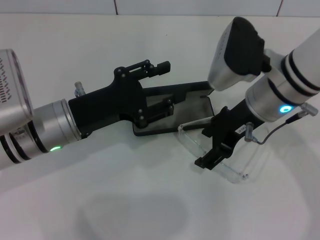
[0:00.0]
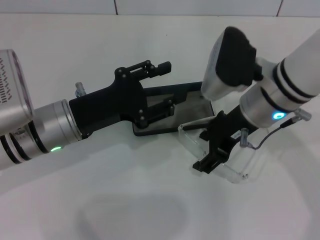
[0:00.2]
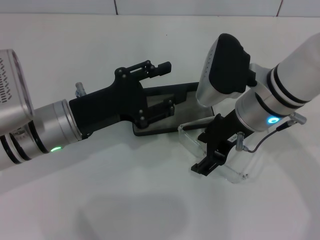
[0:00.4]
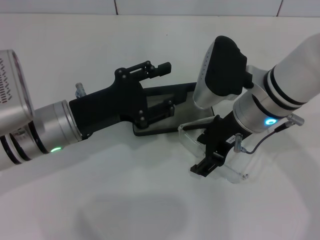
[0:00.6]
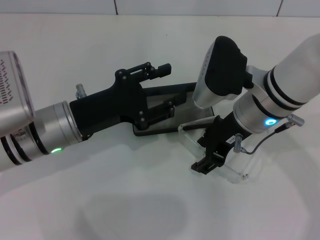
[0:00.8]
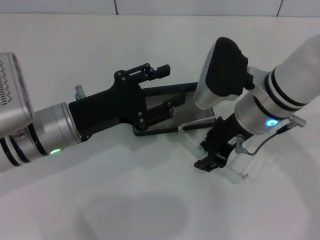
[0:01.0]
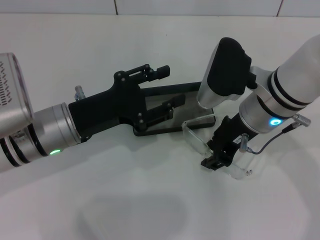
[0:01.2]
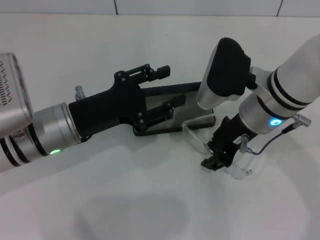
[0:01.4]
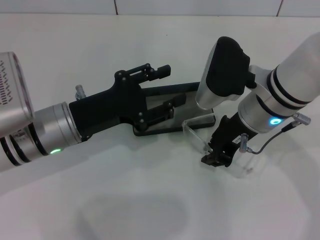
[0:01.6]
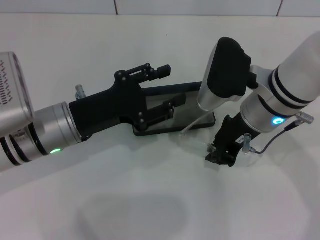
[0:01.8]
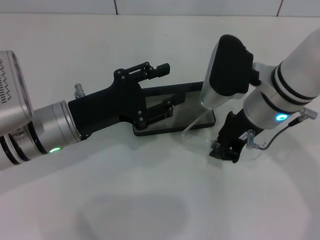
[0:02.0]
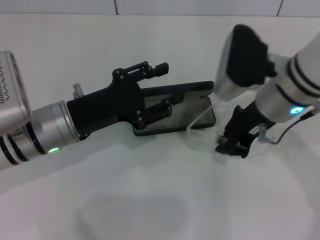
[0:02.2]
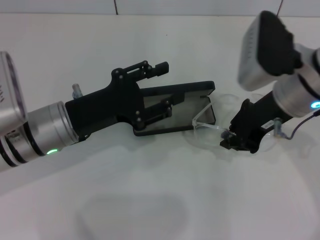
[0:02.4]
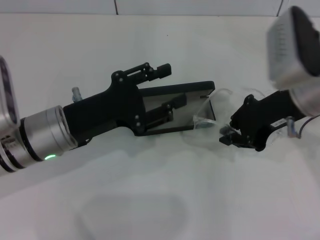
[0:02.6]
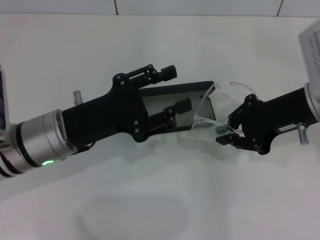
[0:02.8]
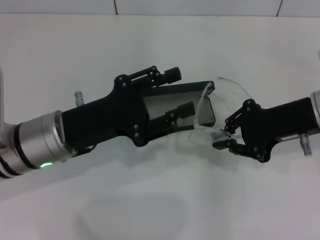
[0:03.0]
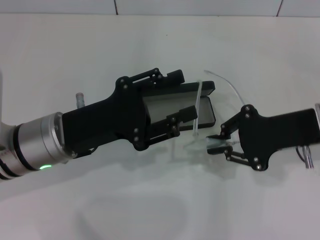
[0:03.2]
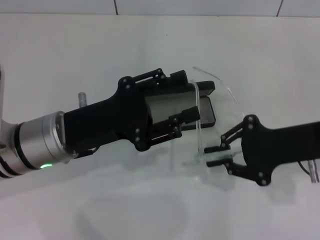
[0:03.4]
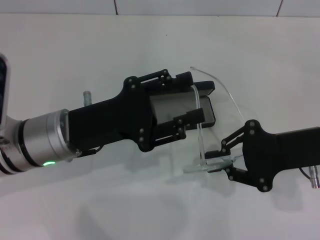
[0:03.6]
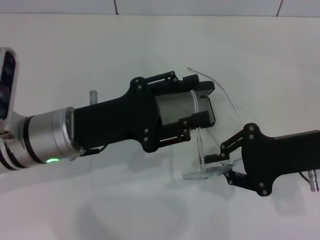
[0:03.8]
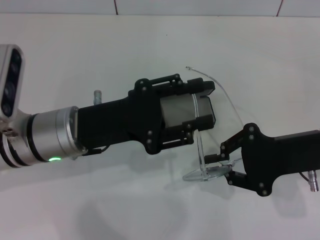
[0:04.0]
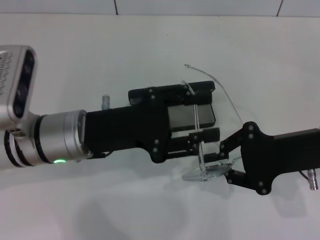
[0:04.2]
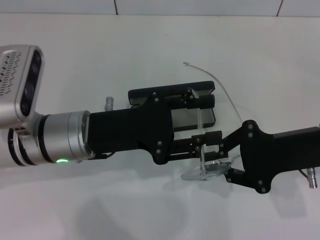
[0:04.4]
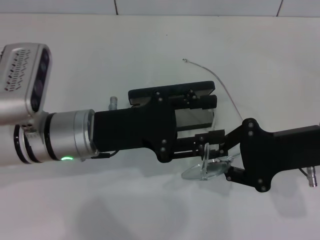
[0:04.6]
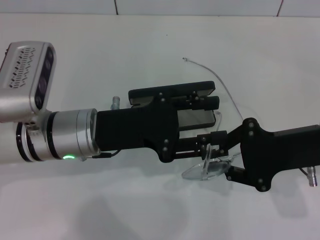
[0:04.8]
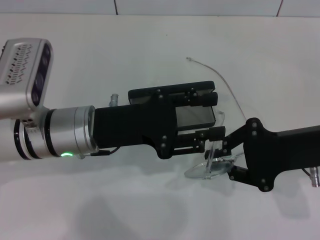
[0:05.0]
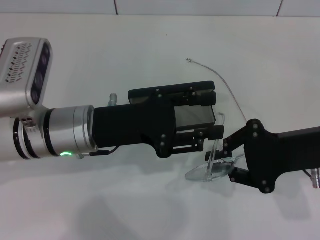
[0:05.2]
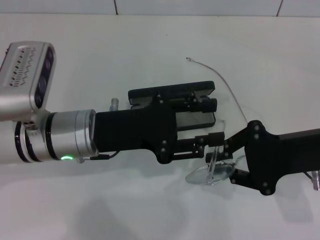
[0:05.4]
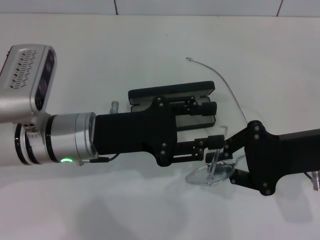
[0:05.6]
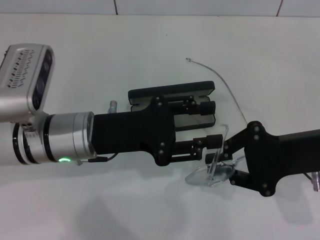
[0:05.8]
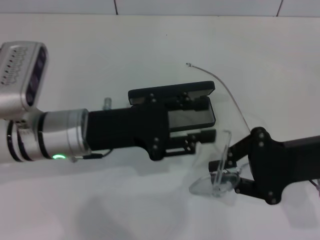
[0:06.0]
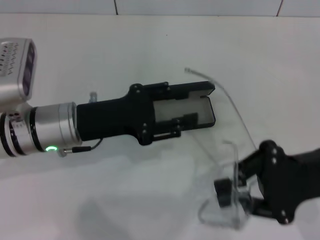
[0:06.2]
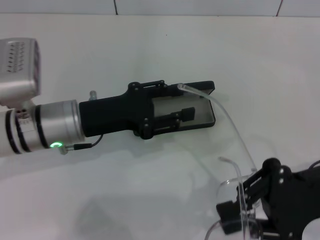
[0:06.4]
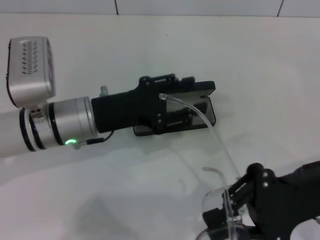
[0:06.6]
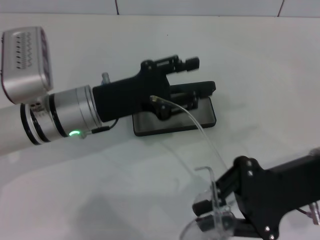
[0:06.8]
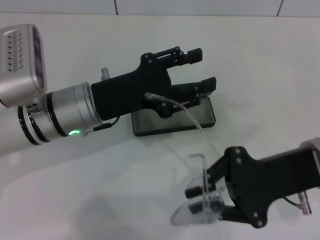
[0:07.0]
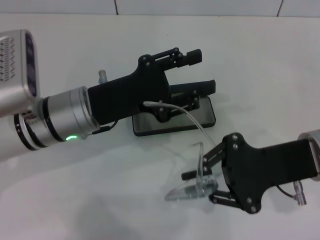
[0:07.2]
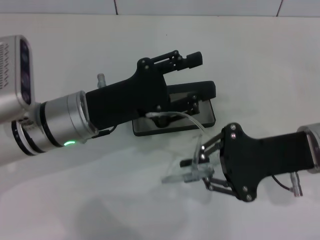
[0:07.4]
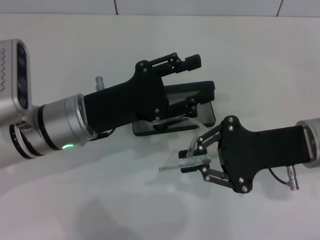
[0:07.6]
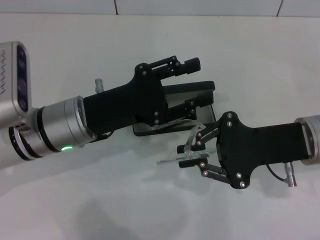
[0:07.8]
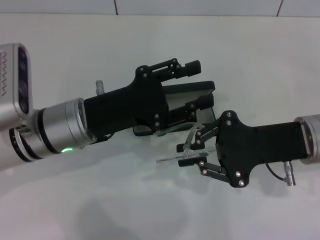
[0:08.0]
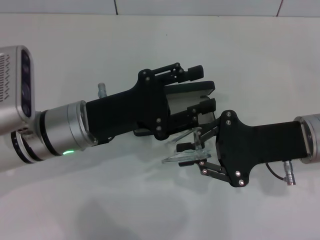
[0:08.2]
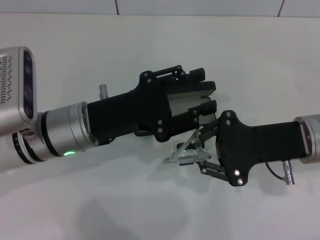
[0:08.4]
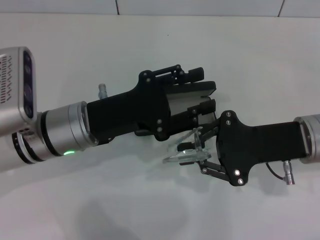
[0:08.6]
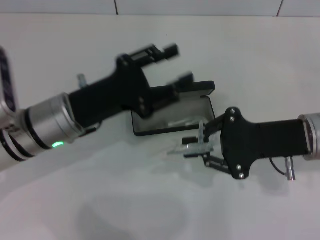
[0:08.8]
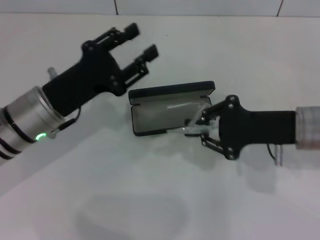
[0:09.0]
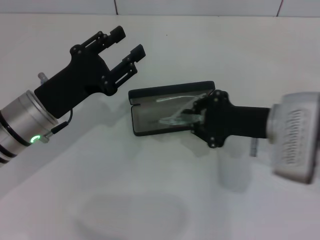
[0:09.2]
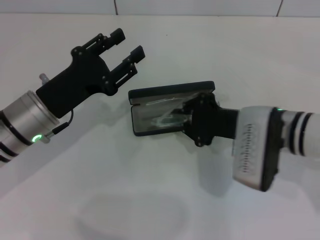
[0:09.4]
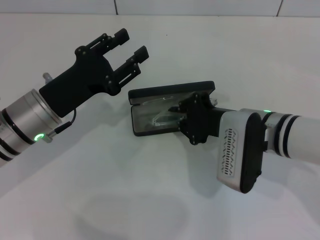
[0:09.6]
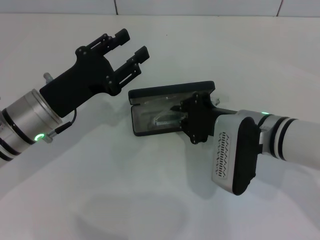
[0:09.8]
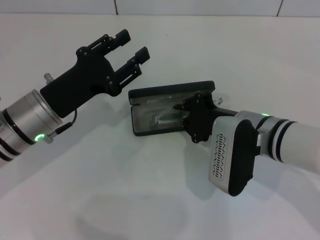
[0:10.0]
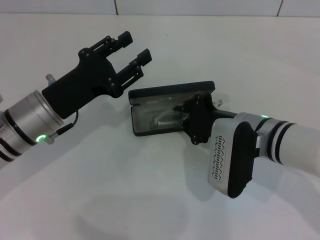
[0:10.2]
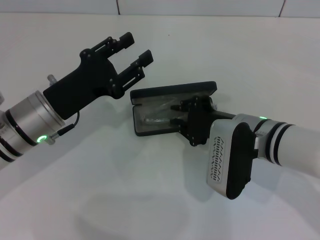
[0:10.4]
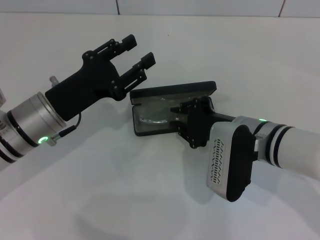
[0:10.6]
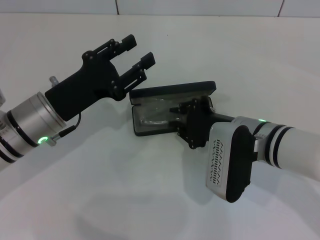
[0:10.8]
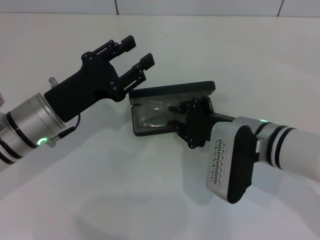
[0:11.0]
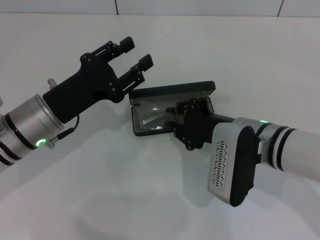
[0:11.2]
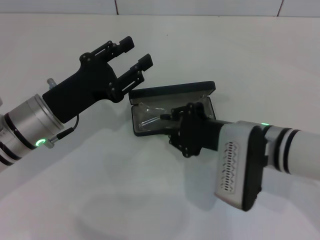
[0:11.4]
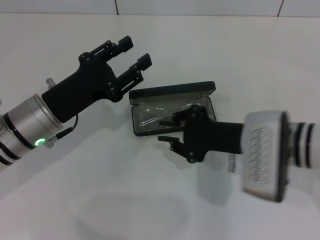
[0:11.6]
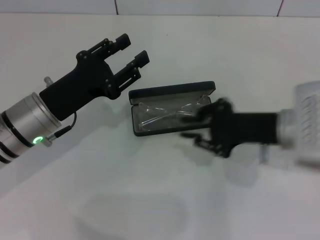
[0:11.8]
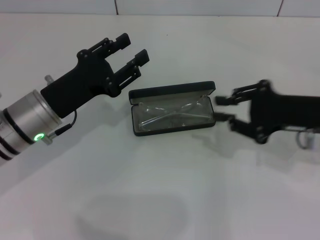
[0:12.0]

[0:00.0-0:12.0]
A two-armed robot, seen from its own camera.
Step, 0:01.6 to 0:08.6: Fold the frame with your left hand.
Step, 0:08.8 to 0:11.4: Put the glasses into the case with your right hand.
0:00.0 to 0:01.6: The right gripper closes.
0:01.6 to 0:03.0: The right gripper travels to the right by about 10 cm, and closes up.
0:04.4 to 0:06.0: The grippers stay close to where they were, moving slightly.
0:09.0 to 0:10.4: The right gripper goes approximately 10 cm to the left.
0:10.4 to 0:12.0: The right gripper goes some 15 cm to the right and upward.

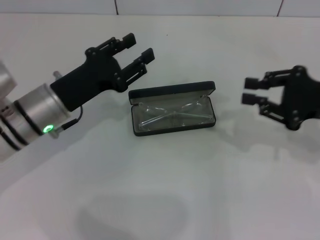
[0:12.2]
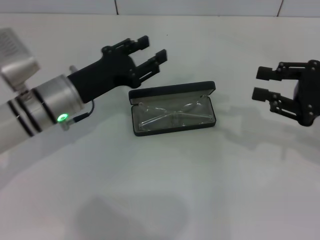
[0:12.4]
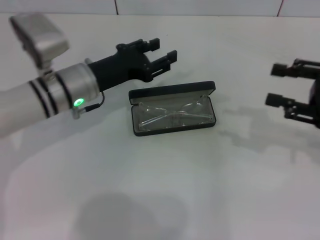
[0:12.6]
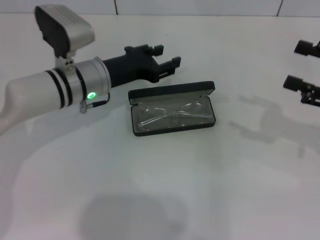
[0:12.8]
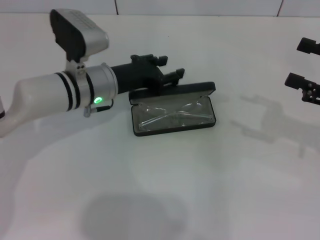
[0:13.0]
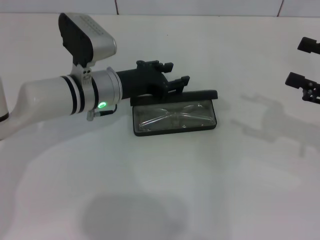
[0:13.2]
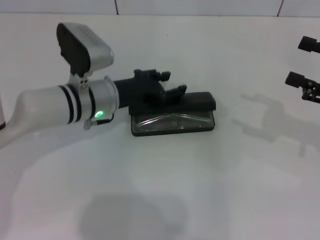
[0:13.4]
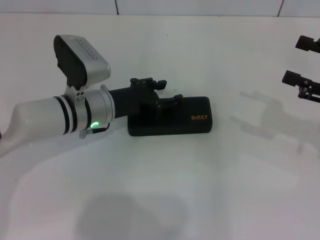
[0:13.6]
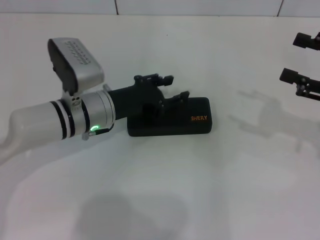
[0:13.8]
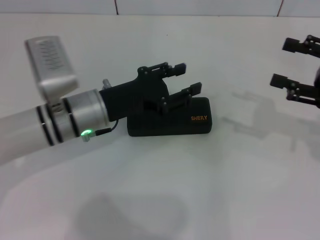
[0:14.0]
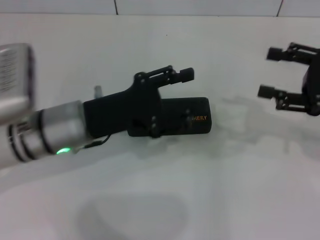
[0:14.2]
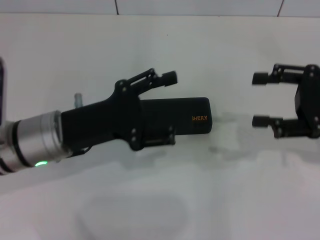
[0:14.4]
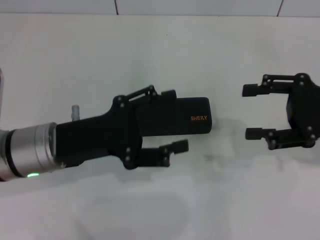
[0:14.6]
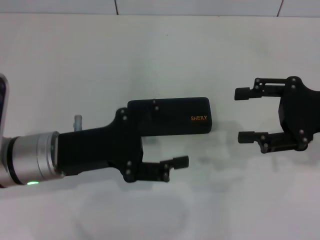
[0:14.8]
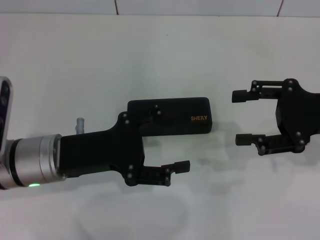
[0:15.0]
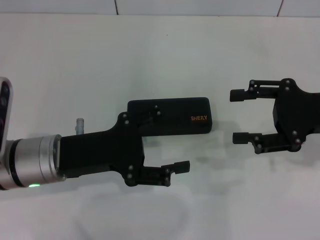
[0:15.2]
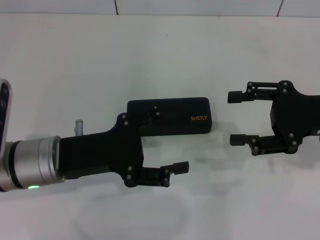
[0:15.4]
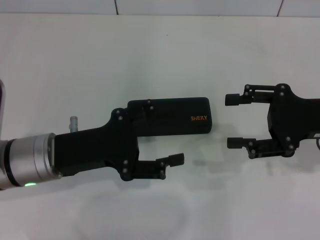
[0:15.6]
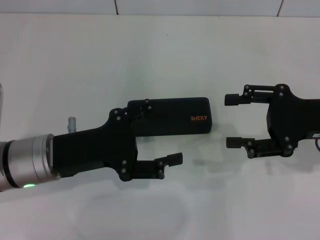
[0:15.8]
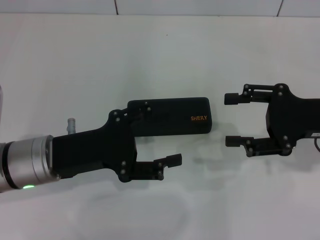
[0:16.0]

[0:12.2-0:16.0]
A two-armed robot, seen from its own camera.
Step, 0:12.2 to 0:13.8: Close the glasses case with your left hand.
0:12.2 to 0:13.4: The left gripper is displaced to the right and forward by roughly 10 cm. Meanwhile the right gripper ends up roughly 5 cm from where it was, and opens up.
0:13.4 to 0:14.8: The left gripper goes some 10 cm backward and to the left. The right gripper shifts some 5 cm to the left.
0:14.8 to 0:16.0: The grippers make only small movements.
